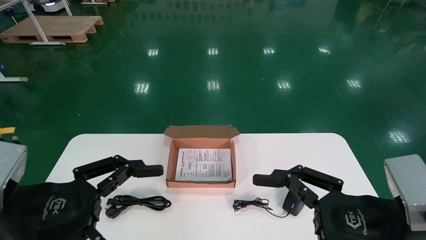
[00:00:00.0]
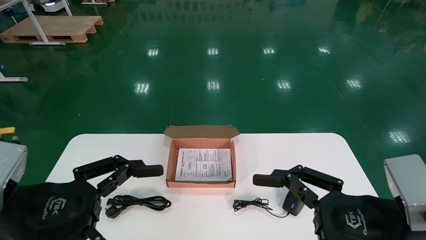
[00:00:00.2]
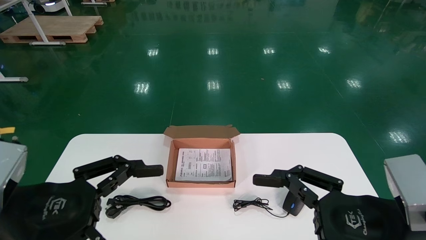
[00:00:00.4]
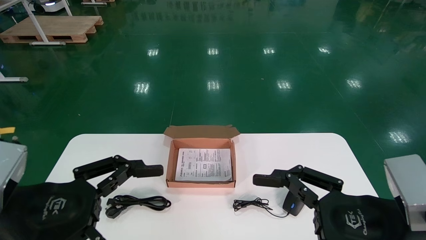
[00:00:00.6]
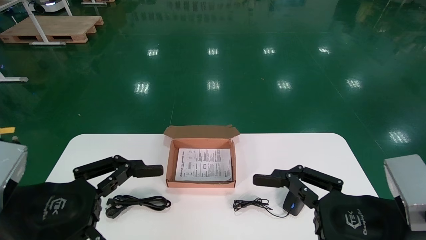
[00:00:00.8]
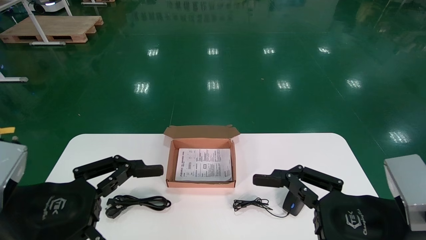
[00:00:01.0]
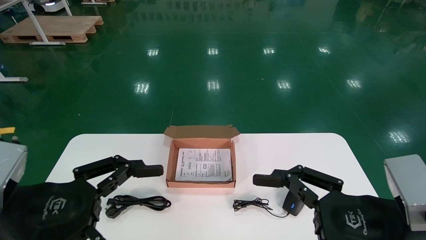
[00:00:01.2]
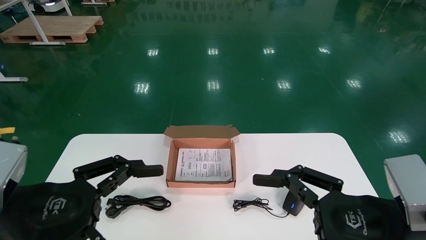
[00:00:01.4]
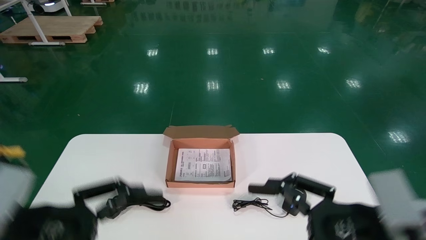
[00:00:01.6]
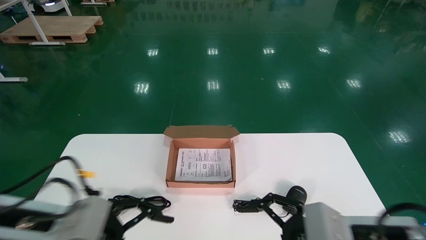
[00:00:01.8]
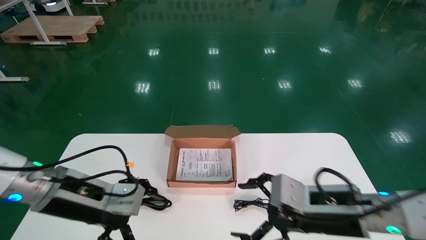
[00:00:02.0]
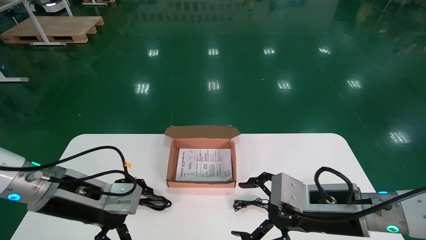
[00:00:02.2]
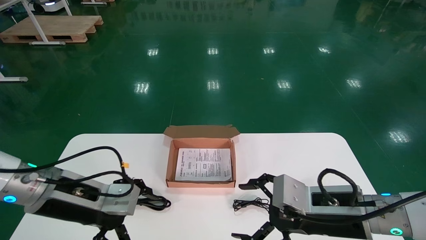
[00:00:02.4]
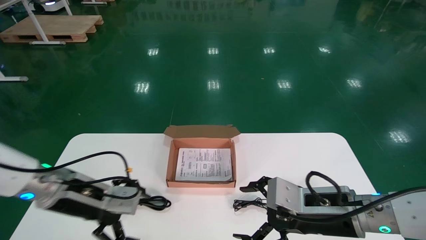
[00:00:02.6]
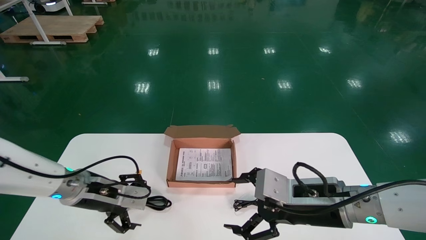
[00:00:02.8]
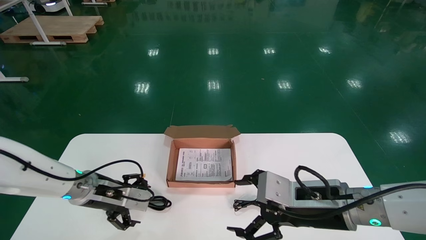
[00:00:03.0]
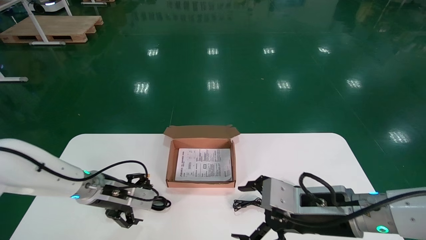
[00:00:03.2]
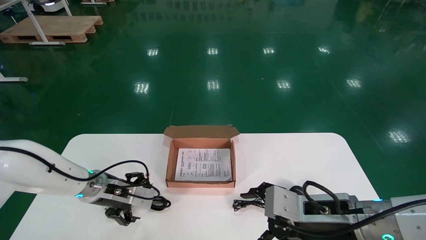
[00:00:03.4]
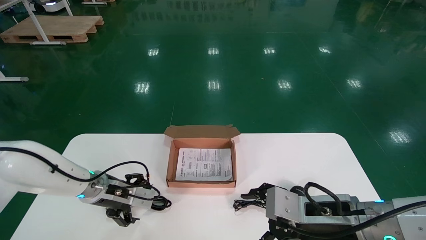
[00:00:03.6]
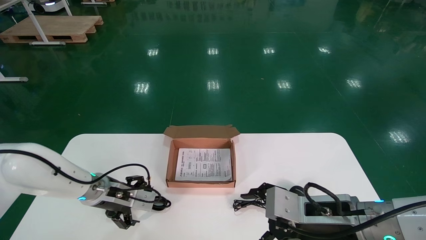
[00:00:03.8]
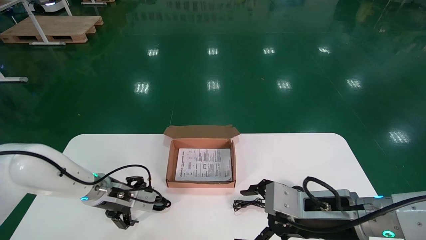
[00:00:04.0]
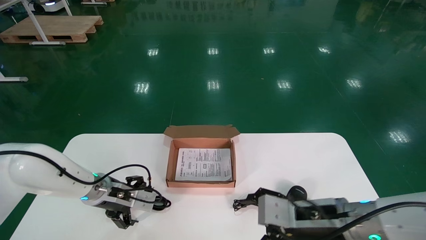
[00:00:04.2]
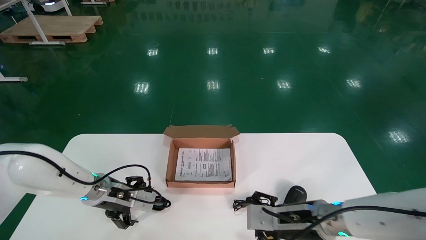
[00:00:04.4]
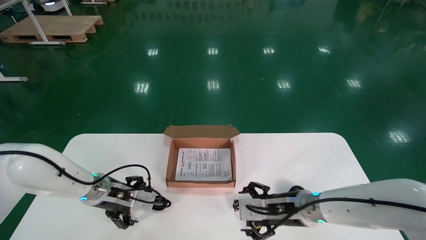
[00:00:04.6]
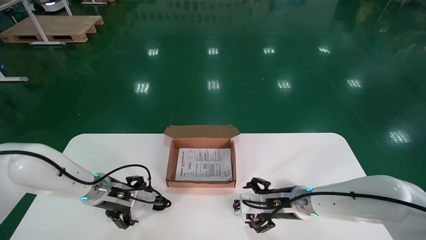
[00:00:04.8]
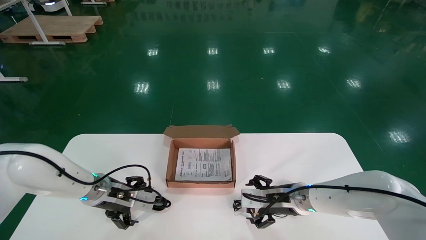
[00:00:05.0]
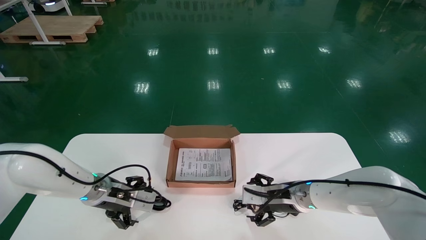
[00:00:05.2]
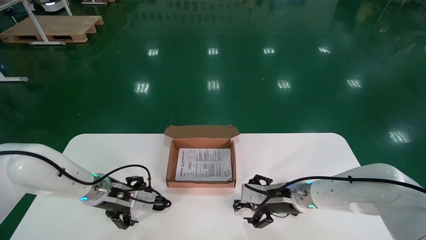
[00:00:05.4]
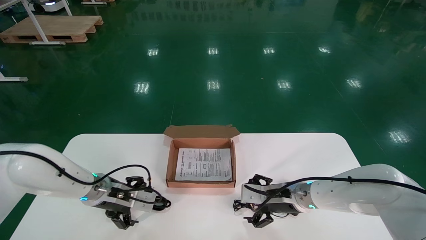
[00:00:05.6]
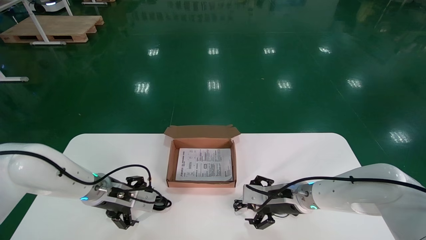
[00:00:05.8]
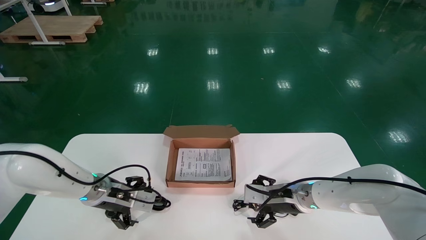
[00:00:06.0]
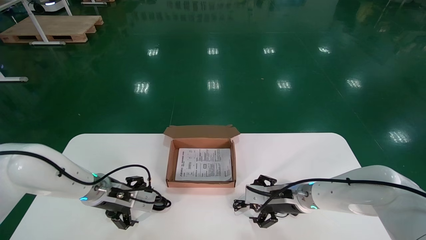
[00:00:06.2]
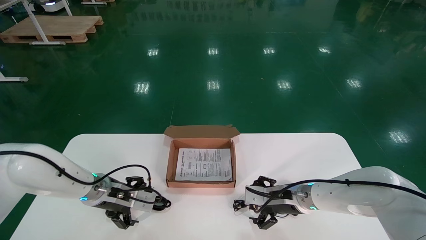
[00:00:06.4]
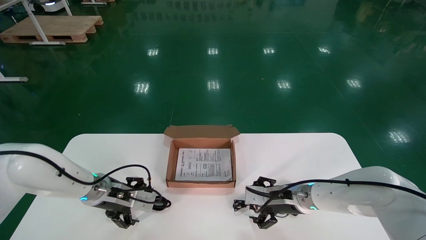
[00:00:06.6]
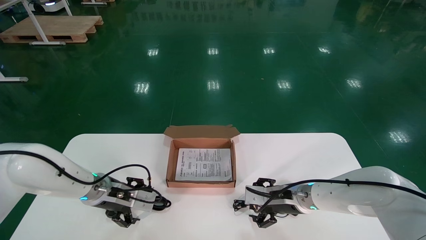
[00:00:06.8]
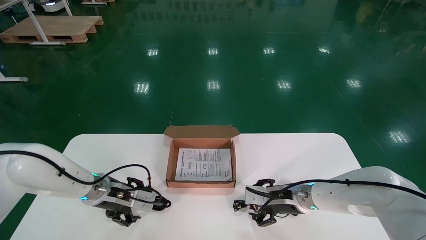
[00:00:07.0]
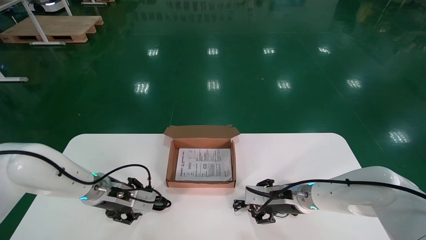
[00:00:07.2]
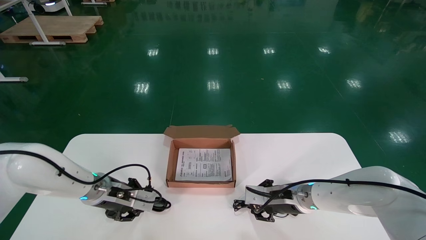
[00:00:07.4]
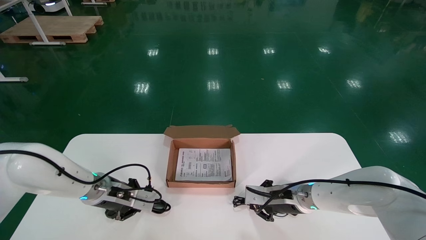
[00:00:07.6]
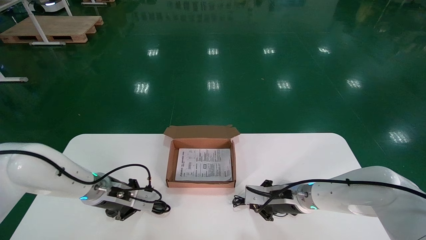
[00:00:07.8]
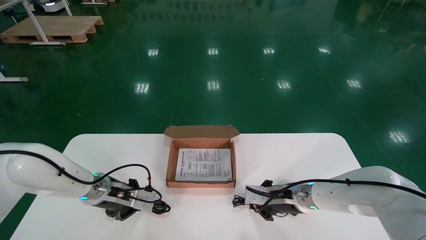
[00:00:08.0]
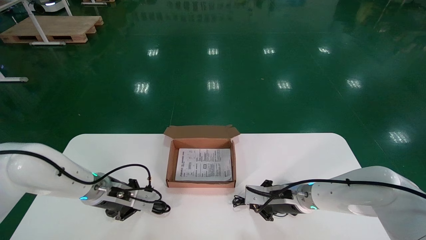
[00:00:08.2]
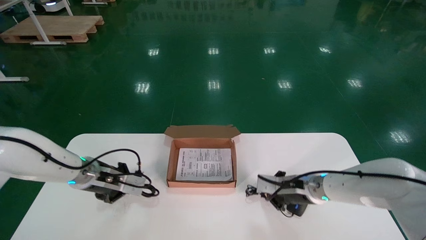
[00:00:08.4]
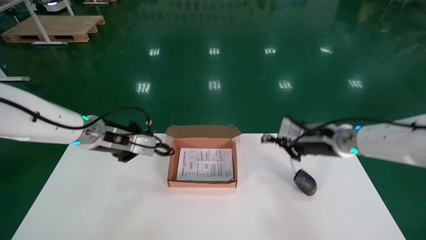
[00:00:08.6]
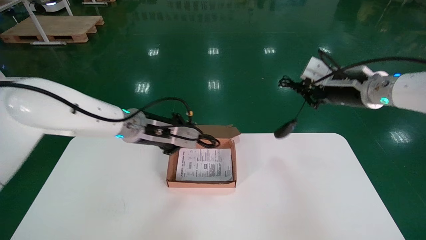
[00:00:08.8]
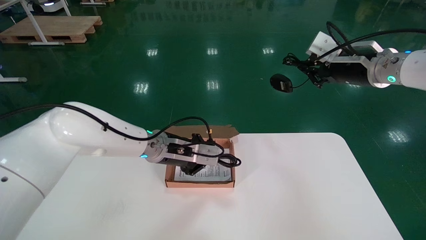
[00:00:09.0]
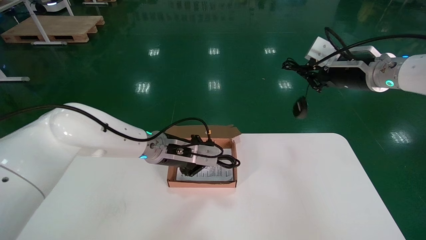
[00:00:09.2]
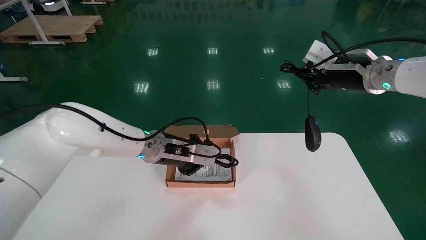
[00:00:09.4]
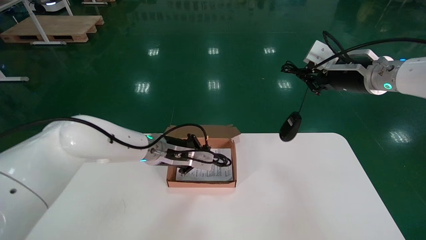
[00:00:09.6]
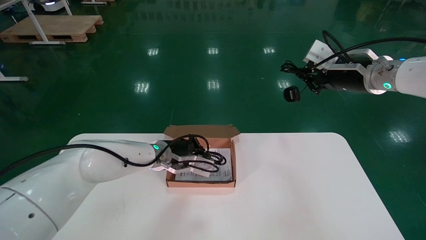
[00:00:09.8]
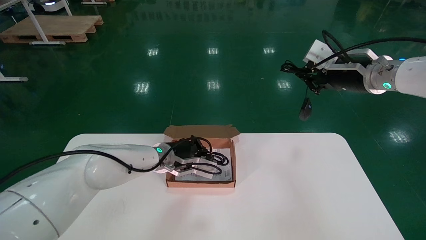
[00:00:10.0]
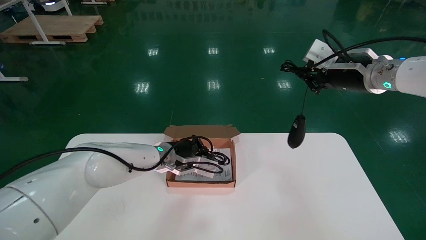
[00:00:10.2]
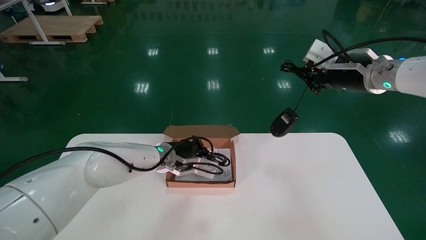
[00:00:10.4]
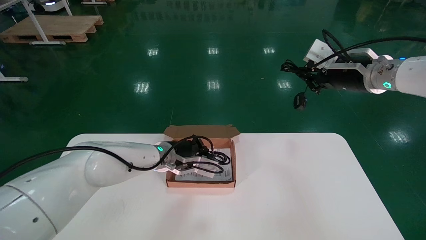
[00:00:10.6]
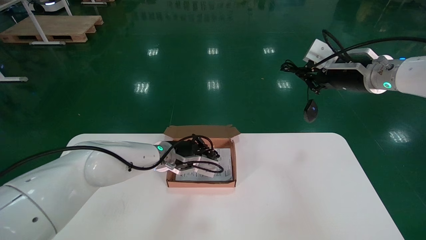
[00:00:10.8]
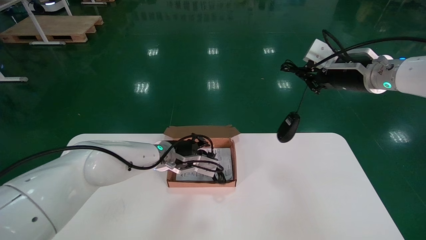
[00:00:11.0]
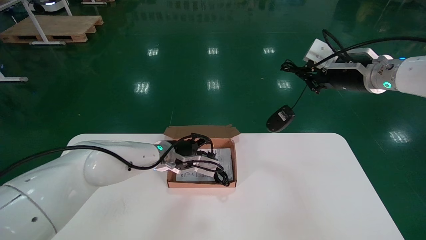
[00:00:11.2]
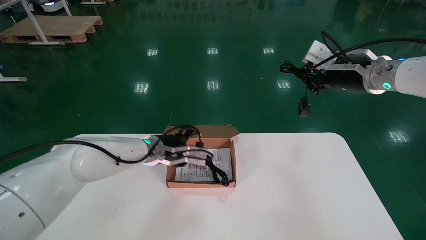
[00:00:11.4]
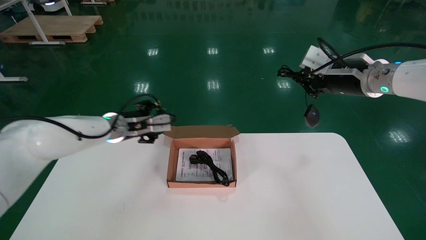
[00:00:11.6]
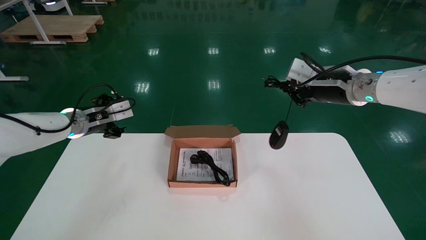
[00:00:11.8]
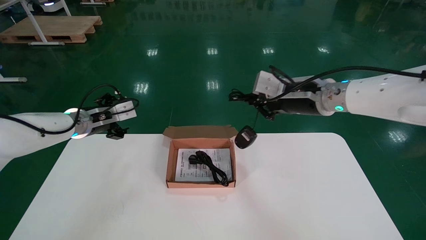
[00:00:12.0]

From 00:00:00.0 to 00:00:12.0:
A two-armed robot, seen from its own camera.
Step, from 00:00:01.8 to 00:00:07.6: Simultaneously pick up the mouse and power cord from the accessory packaging area.
From 00:00:00.0 to 00:00:01.6: The grippers stay close to where they were, moving slightly.
From 00:00:01.6 to 00:00:03.0: The left gripper heads forward, covering approximately 20 cm, while the right gripper travels forward by approximately 10 cm.
From 00:00:03.0 to 00:00:04.4: The right gripper is displaced forward and downward by some 10 cm.
From 00:00:04.4 to 00:00:06.0: The right gripper travels forward by approximately 10 cm.
From 00:00:06.0 to 00:00:07.6: The right gripper closes. Meanwhile the left gripper closes its fingers.
From 00:00:07.6 to 00:00:09.0: The left gripper heads to the right and upward, covering roughly 15 cm. The right gripper shifts some 30 cm upward.
From 00:00:09.0 to 00:00:10.4: The left gripper changes place by roughly 5 cm.
From 00:00:10.4 to 00:00:12.0: The left gripper heads to the left, covering approximately 20 cm, and opens; the right gripper is displaced to the left by approximately 10 cm.

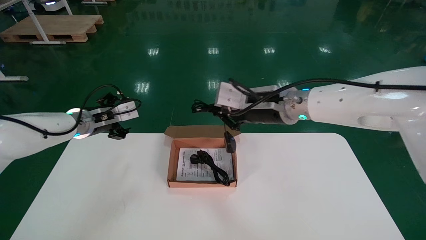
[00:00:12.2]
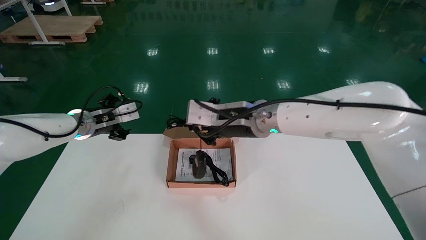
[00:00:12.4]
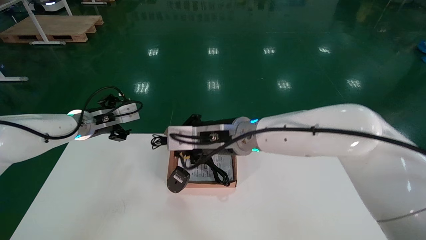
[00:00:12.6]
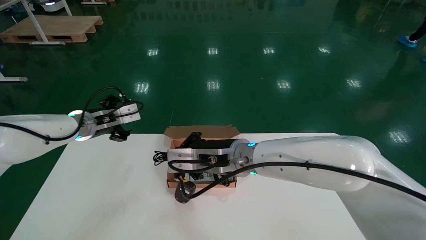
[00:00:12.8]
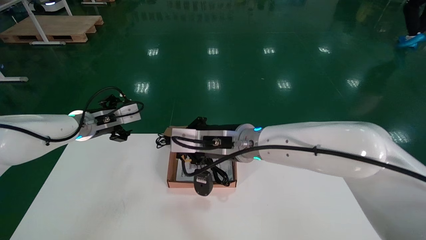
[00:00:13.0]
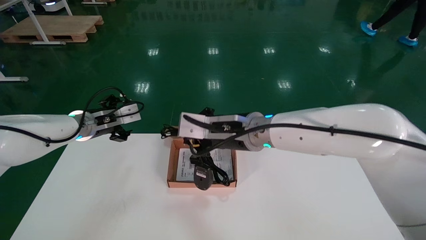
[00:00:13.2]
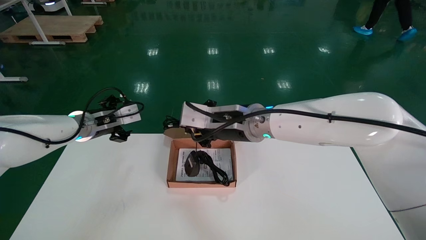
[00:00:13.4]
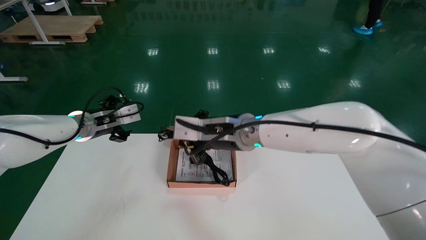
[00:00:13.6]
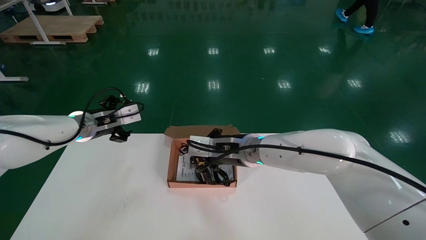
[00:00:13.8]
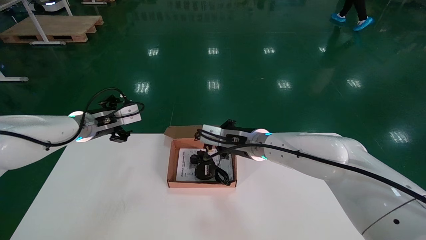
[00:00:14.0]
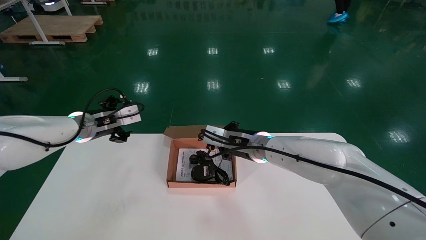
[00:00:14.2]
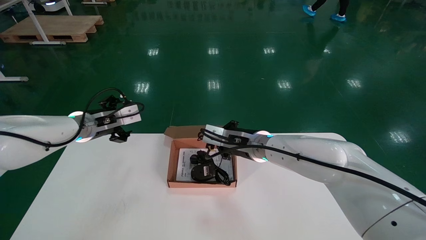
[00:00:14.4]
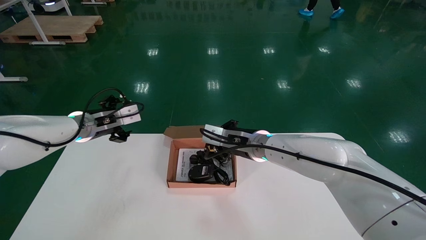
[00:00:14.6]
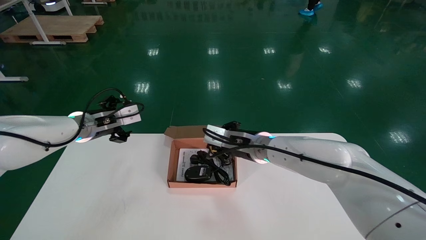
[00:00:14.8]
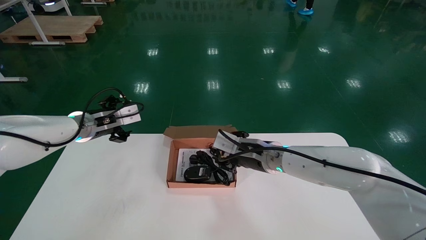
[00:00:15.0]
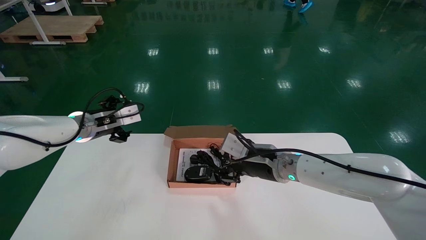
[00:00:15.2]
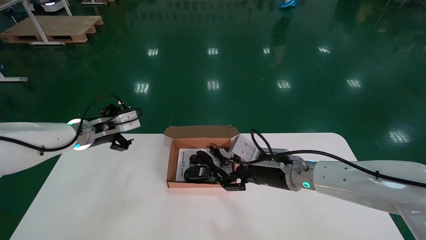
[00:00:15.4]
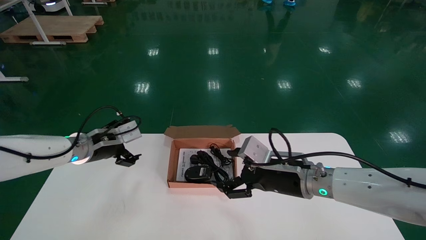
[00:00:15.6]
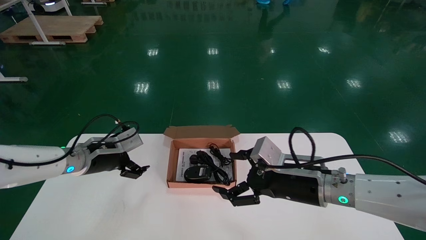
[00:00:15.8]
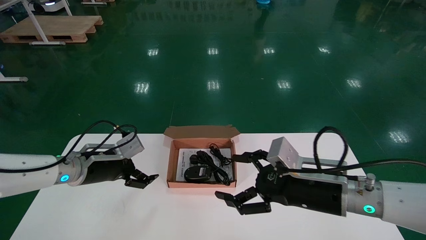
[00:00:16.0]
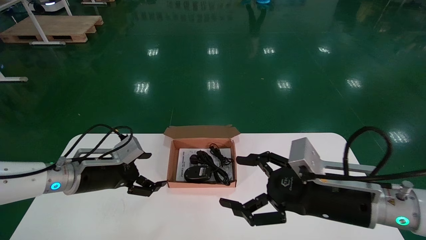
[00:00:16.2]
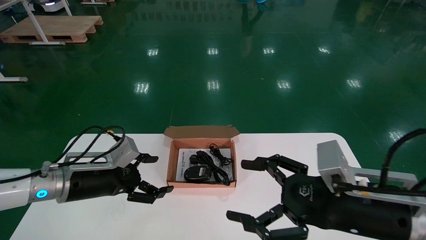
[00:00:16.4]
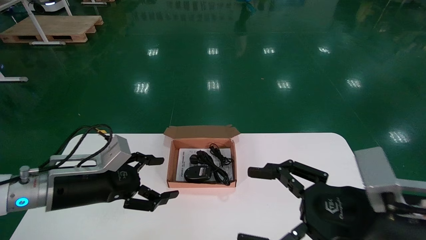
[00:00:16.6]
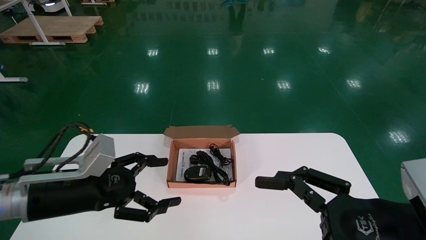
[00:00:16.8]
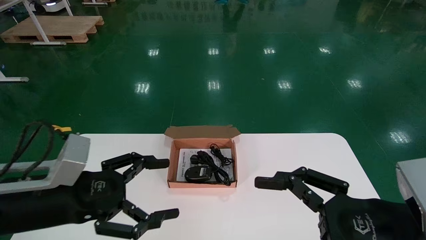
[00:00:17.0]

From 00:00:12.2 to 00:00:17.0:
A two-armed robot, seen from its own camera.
Step, from 00:00:12.2 to 00:00:14.6: Place the mouse and power cord into the box.
From 00:00:12.2 to 00:00:13.8: The right gripper moves downward and to the left, roughly 10 cm.
From 00:00:13.8 to 00:00:15.4: The right gripper travels to the right and downward by roughly 10 cm, and opens its fingers.
From 00:00:15.4 to 00:00:17.0: The left gripper shifts about 20 cm backward; the right gripper travels backward and to the right by approximately 25 cm.
